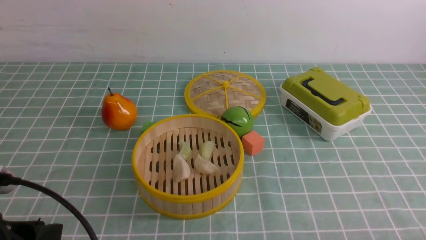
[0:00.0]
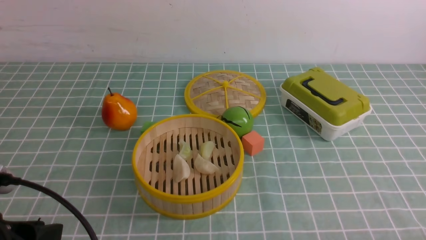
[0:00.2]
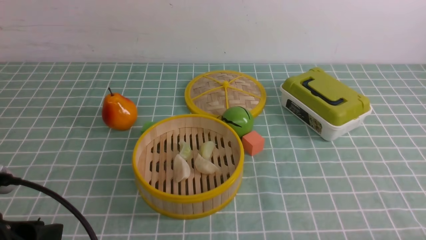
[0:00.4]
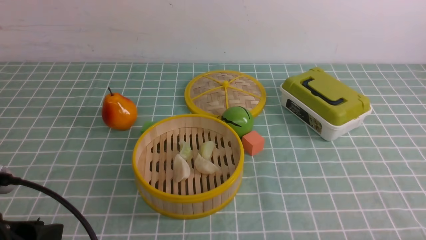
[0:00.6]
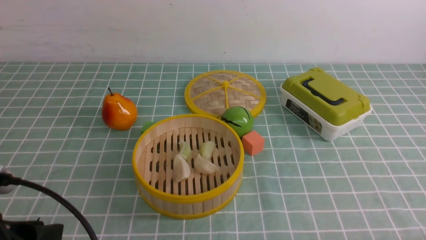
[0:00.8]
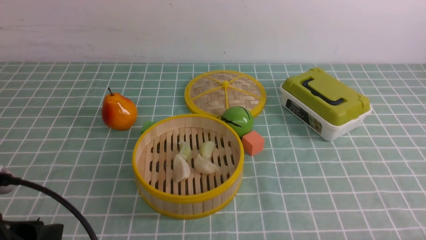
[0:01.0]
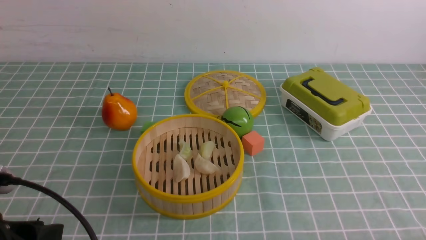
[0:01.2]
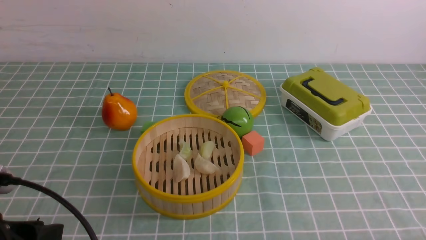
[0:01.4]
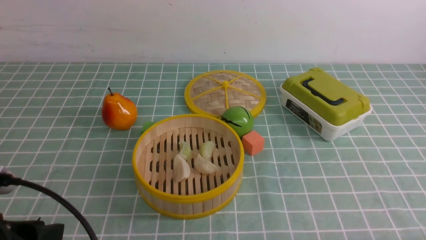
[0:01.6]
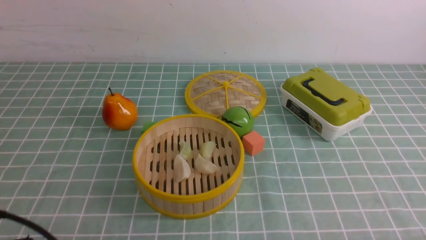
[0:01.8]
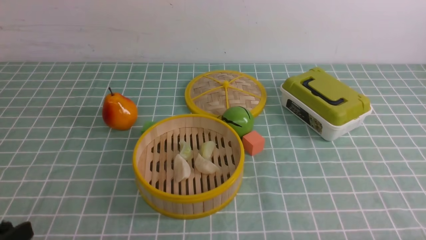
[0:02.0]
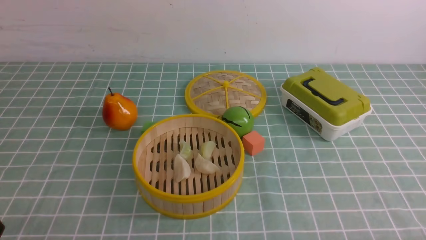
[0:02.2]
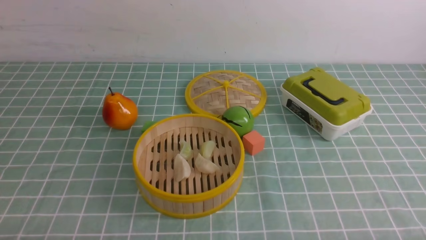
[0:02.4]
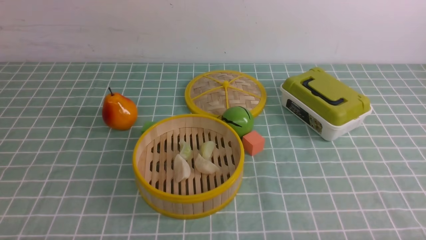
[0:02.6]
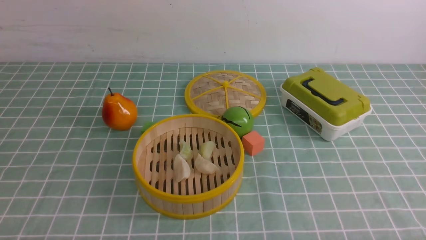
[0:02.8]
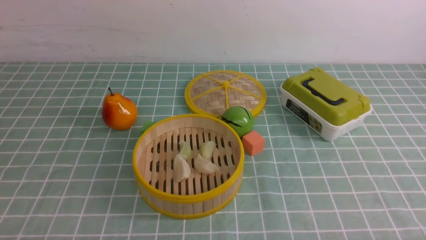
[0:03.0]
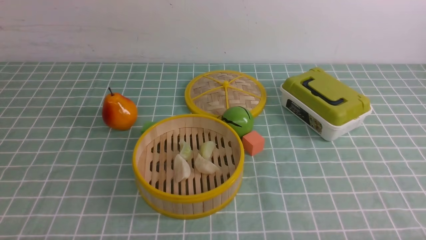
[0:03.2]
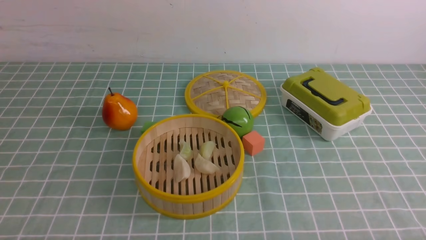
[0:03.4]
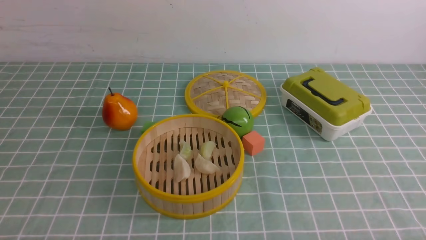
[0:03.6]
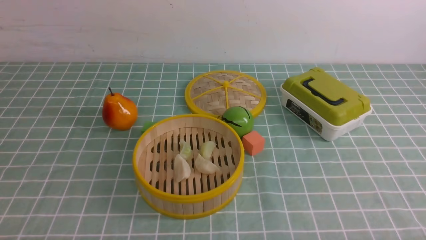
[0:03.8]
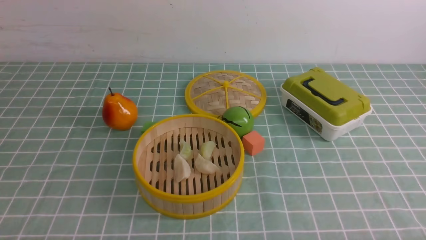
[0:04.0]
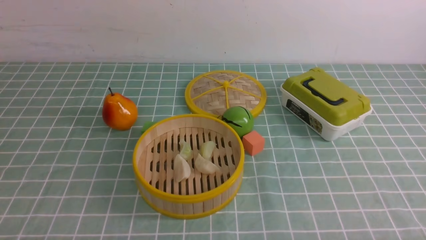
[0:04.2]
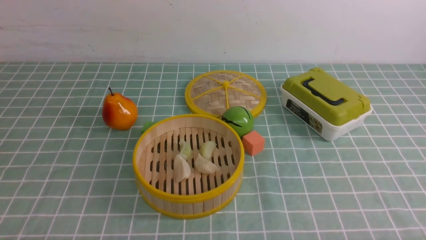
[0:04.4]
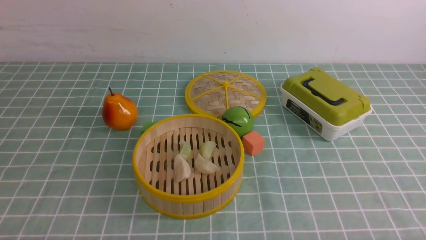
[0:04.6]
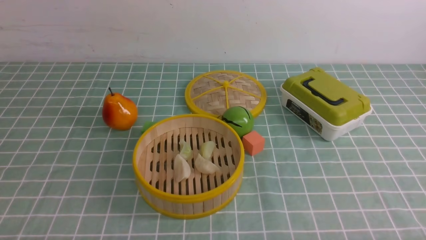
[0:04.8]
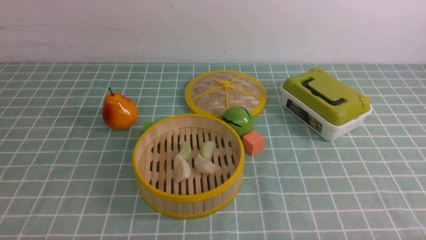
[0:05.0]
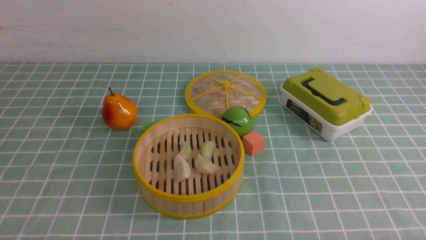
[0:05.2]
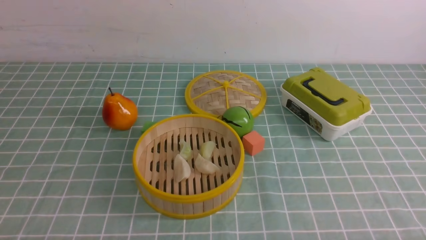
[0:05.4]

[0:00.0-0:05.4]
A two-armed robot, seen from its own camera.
Task of the whole recording: put the dumplings into the steamer on the table with the blue tablecloth.
0:01.4 to 0:02.8: The left gripper goes approximately 10 cm downward and backward, and closes up.
0:02.8 to 0:05.4: The two grippers keep their place.

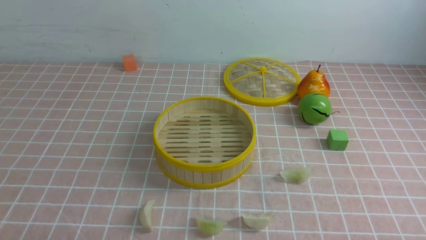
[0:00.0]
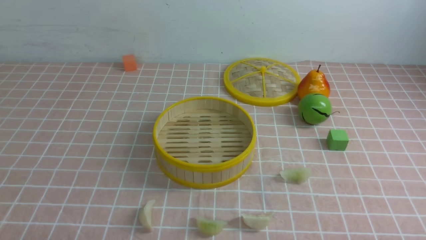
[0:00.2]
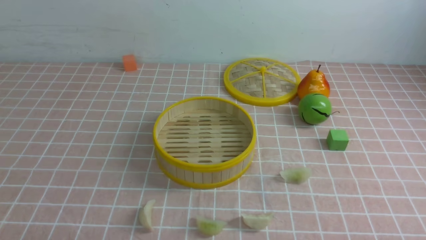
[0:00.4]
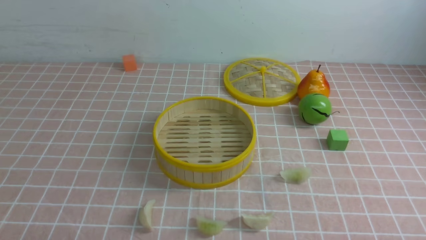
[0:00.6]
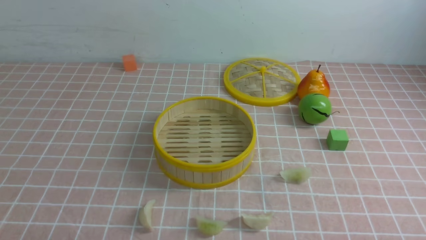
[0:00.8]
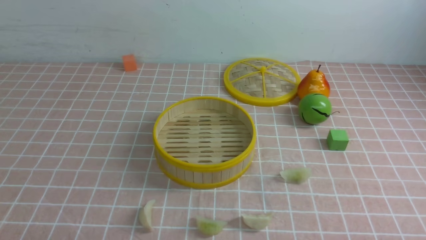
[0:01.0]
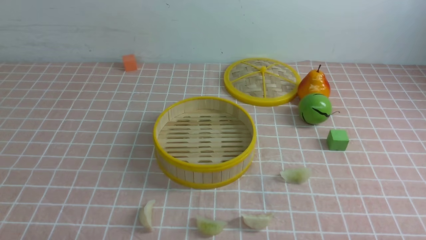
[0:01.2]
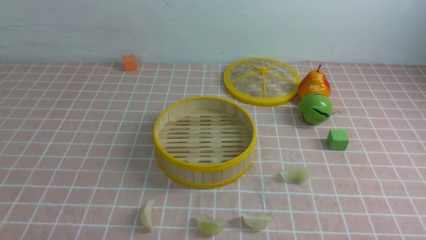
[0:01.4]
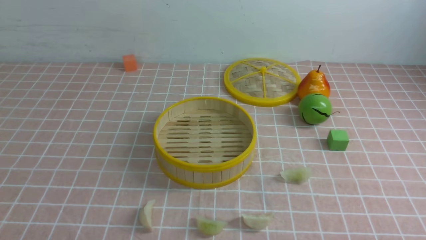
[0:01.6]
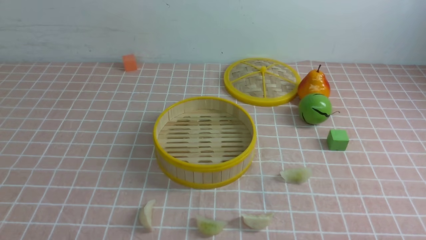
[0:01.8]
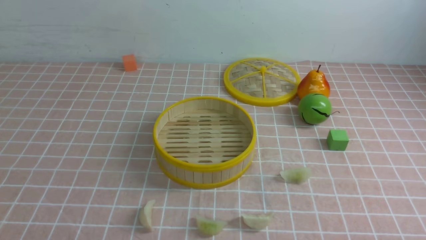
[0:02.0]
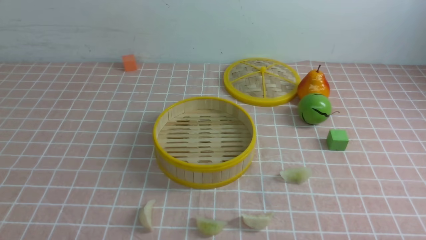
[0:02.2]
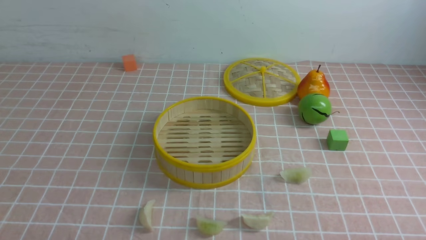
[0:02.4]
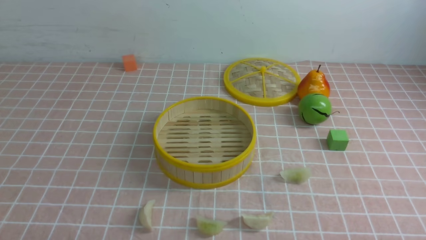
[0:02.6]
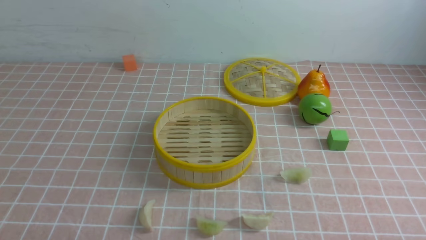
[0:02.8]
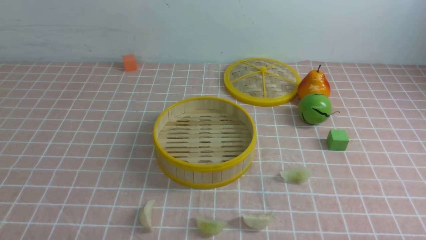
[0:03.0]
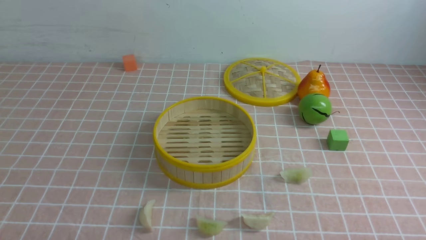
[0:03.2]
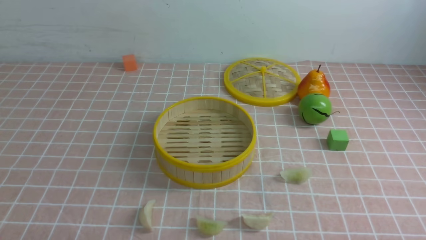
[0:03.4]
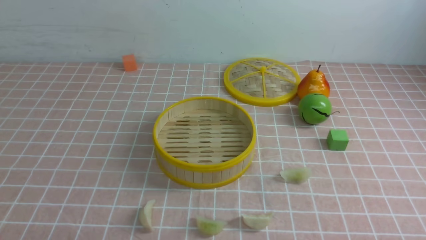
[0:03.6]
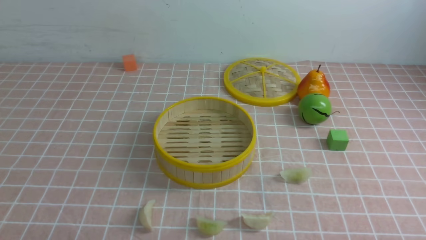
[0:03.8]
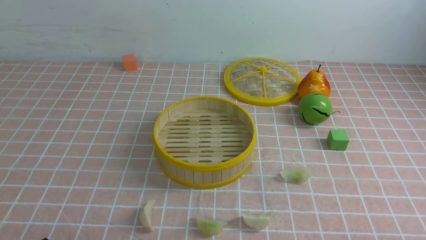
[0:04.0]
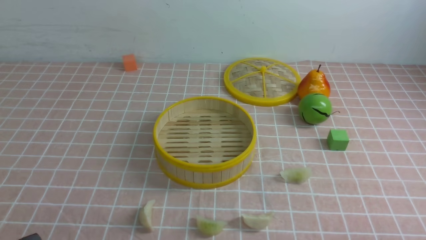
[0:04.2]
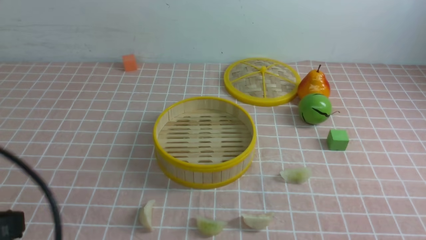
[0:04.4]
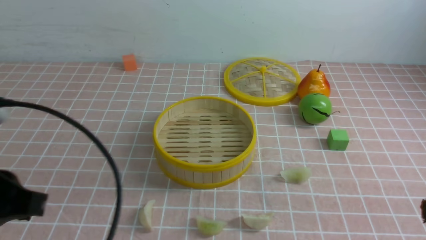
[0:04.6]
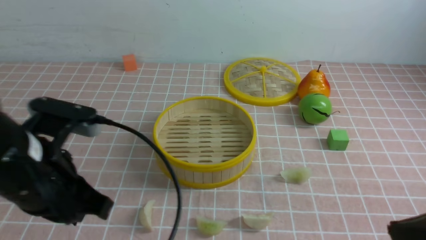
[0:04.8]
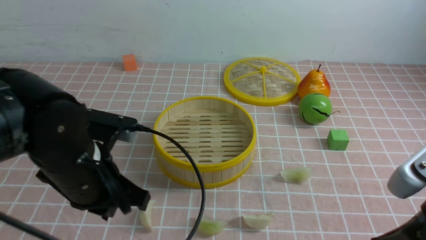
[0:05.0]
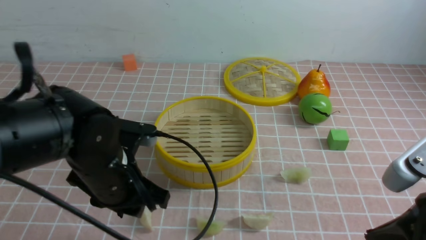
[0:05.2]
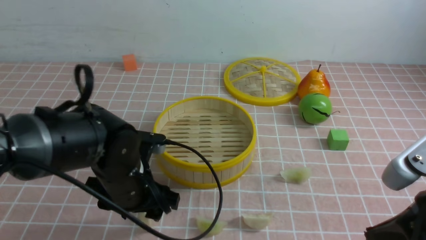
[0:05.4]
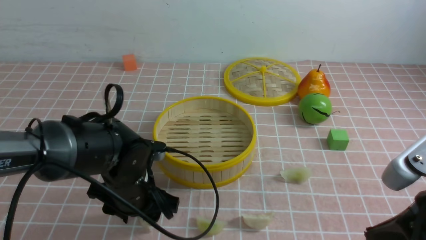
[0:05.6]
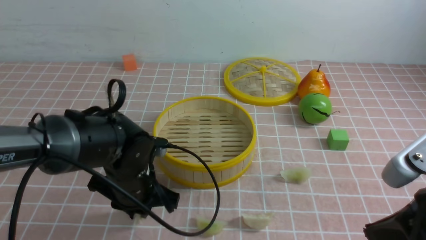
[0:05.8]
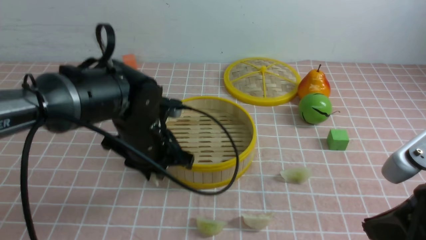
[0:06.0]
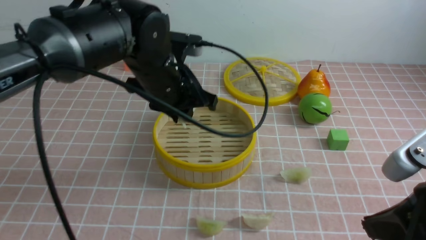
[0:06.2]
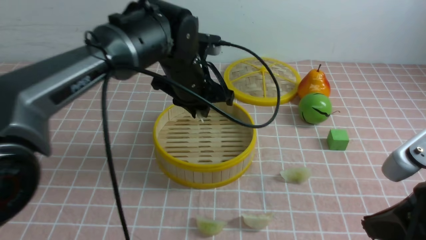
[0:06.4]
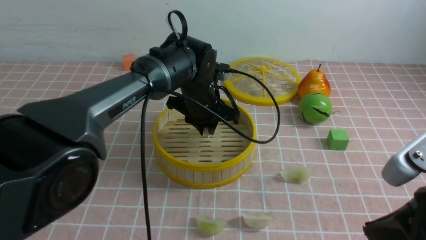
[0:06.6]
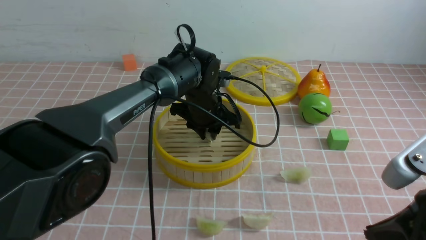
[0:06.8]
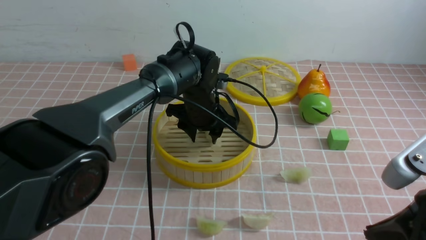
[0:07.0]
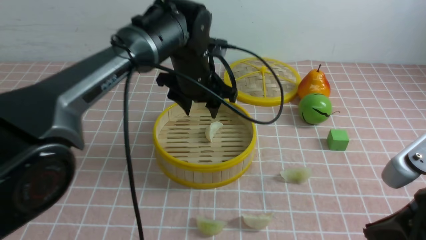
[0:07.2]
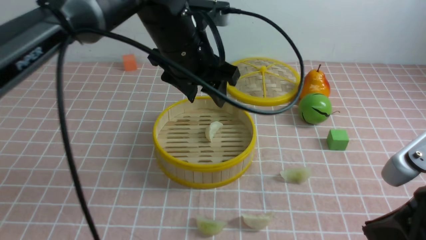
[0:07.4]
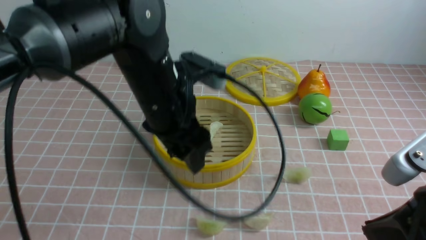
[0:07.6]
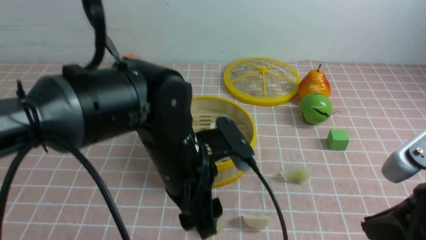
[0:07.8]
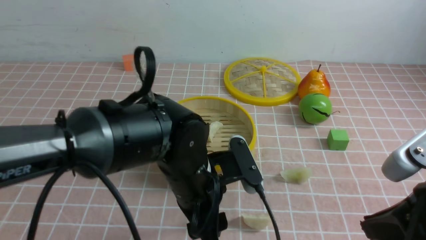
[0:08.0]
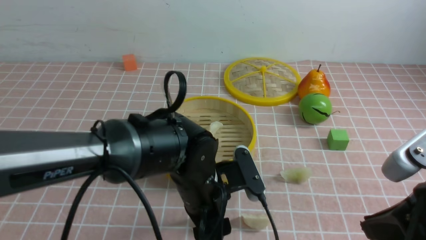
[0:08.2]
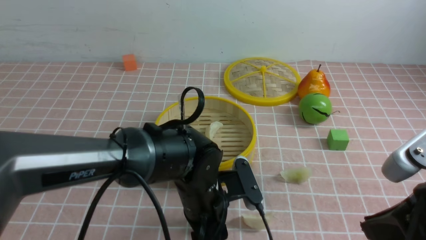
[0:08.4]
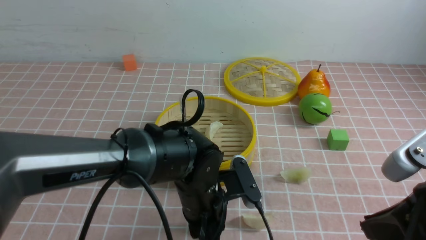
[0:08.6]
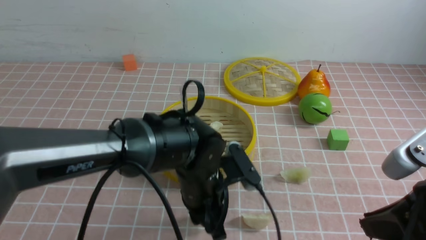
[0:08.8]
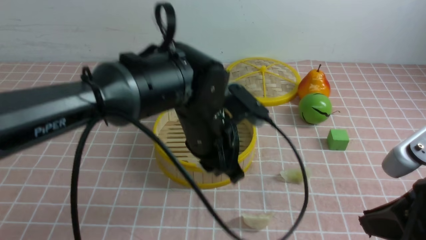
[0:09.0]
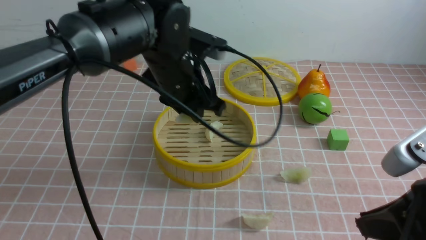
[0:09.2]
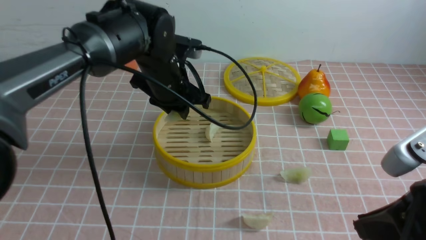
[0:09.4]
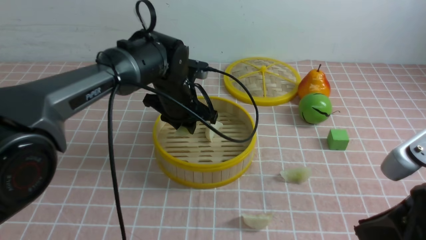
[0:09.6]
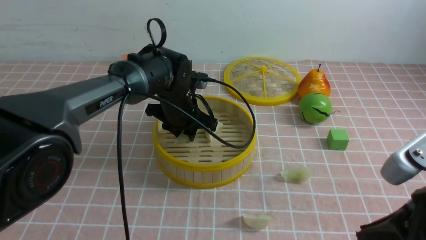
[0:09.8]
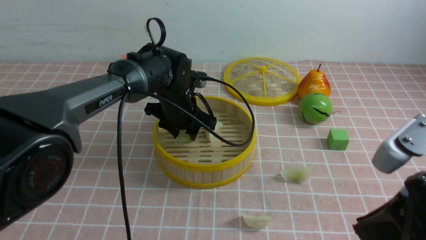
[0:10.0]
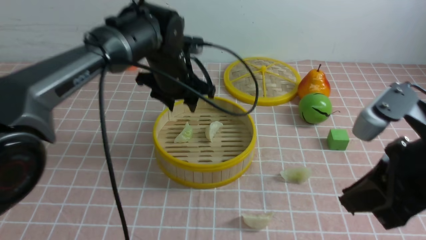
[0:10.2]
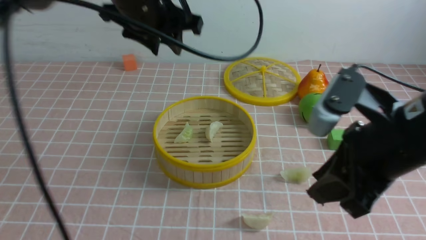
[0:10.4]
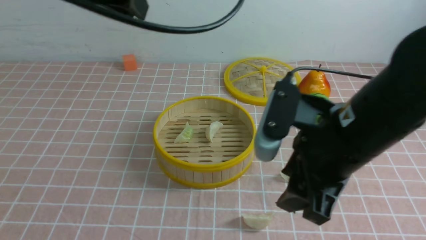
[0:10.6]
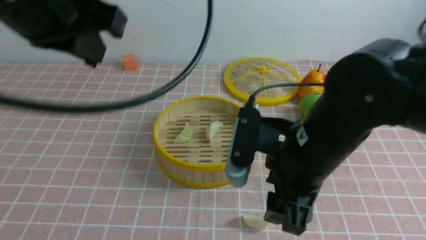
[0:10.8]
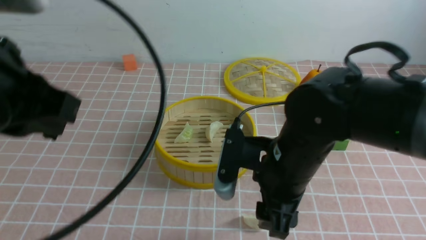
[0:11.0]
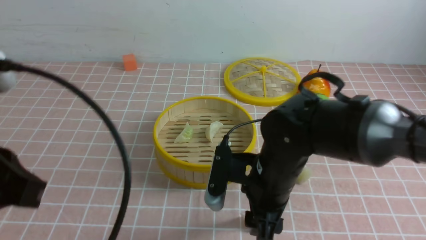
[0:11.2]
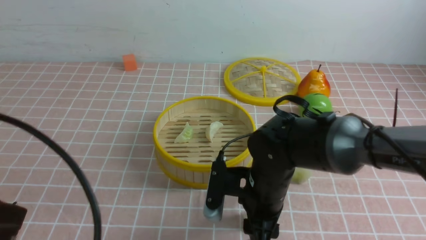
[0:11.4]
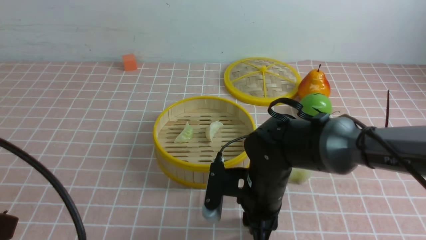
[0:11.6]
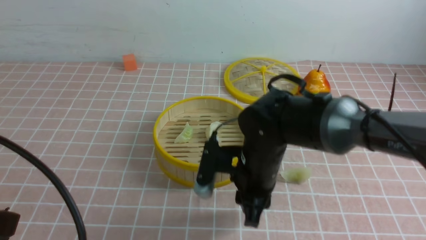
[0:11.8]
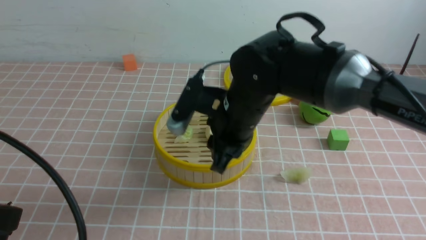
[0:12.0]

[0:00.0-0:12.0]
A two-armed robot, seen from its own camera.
Task of the whole recording: put the dumplings into the steamer on the table with the pink tablecloth.
Step, 0:00.0 to 0:05.8: use the left arm to grab a dumpling.
Step, 0:06.0 to 0:06.8: use the left arm to put the dumpling into the steamer.
Step, 0:07.0 to 0:08.6: use the left arm to grab a dumpling.
Step, 0:08.8 to 0:10.0: use the left arm to put the dumpling into the steamer.
Step, 0:10.2 to 0:11.6: use the right arm to grab a dumpling.
0:03.0 to 0:04.4: The left gripper travels upward by roughly 15 cm, and closes.
0:04.4 to 0:06.0: The right gripper goes about 10 cm forward and upward. Meanwhile the left gripper travels forward and to the right by roughly 30 cm, and opens and closes again.
0:06.0 to 0:07.6: The left gripper is displaced upward and to the right by some 10 cm, travels forward and back again, approximately 15 cm each way, and opens its fingers.
0:07.6 to 0:09.0: The left gripper shifts some 10 cm downward, and closes its fingers.
0:09.0 to 0:10.4: The left gripper moves up and down over some 15 cm, changing direction 2 times. The right gripper goes roughly 5 cm forward.
0:10.4 to 0:12.0: The right gripper moves to the left, forward and downward, roughly 20 cm, and opens, then closes once more. The left gripper moves backward and to the left, roughly 35 cm, and closes its fingers.
